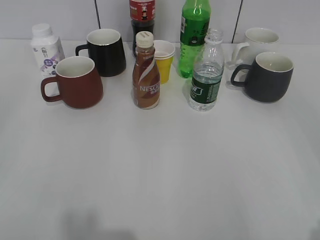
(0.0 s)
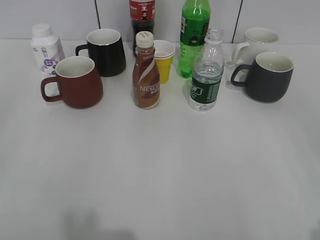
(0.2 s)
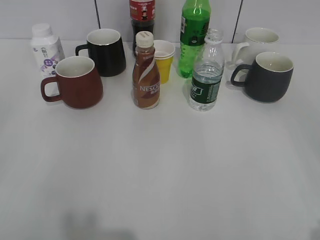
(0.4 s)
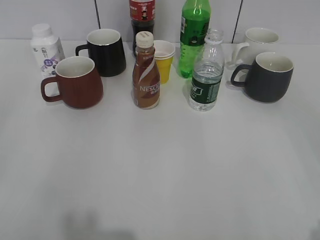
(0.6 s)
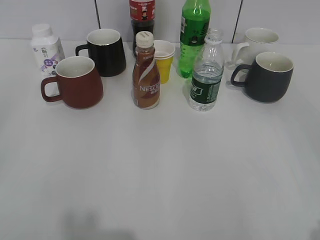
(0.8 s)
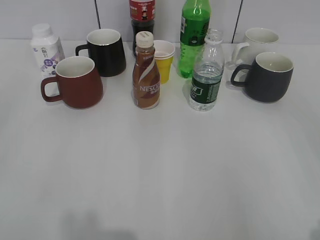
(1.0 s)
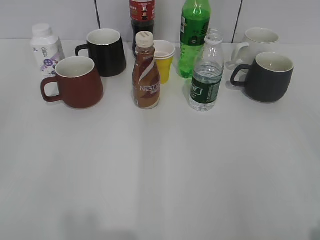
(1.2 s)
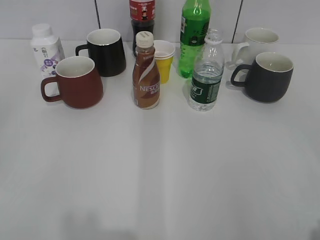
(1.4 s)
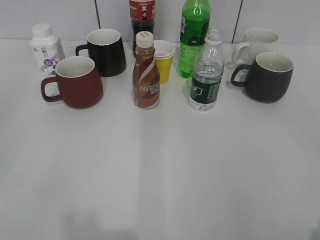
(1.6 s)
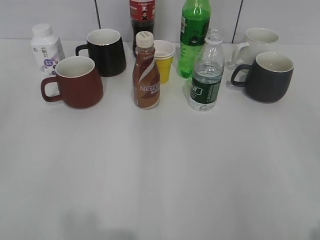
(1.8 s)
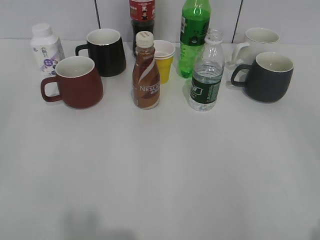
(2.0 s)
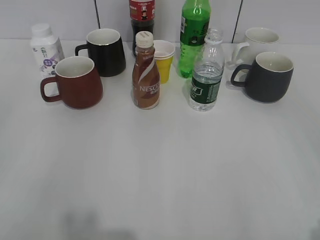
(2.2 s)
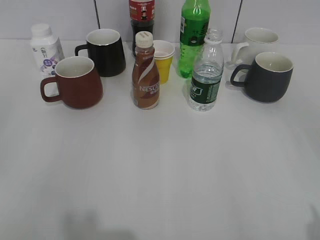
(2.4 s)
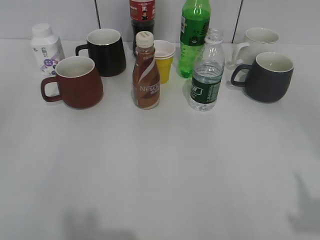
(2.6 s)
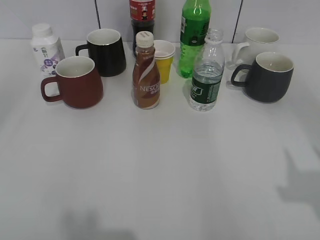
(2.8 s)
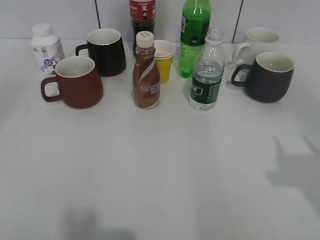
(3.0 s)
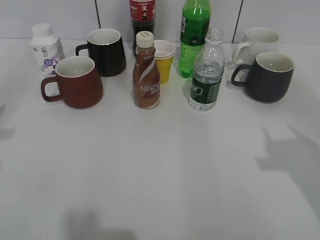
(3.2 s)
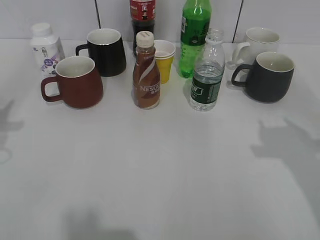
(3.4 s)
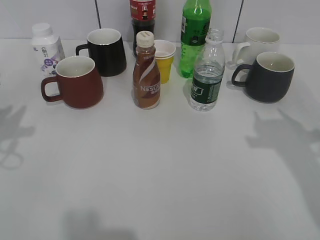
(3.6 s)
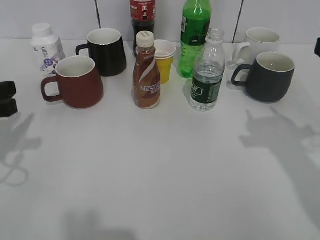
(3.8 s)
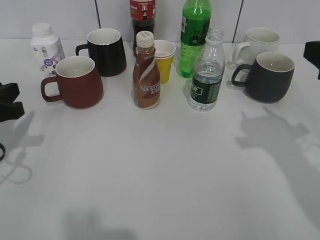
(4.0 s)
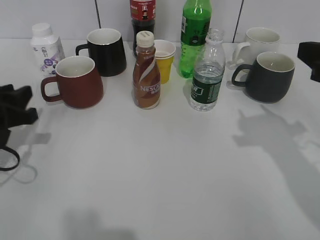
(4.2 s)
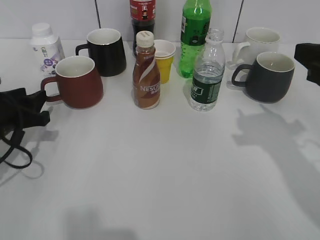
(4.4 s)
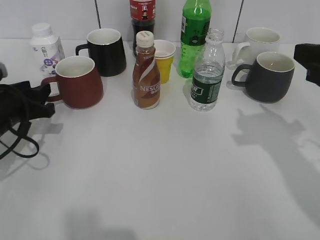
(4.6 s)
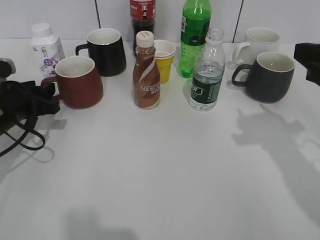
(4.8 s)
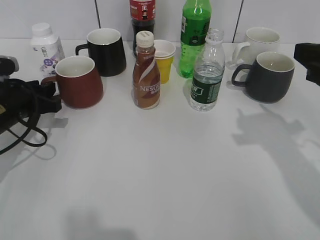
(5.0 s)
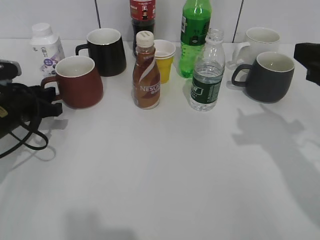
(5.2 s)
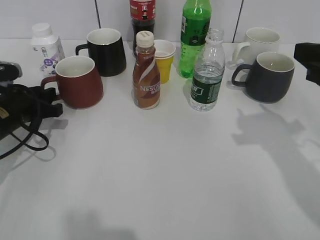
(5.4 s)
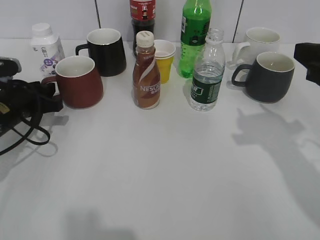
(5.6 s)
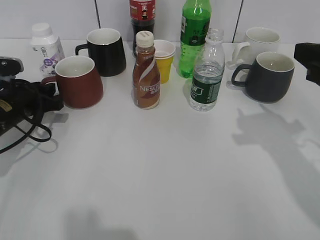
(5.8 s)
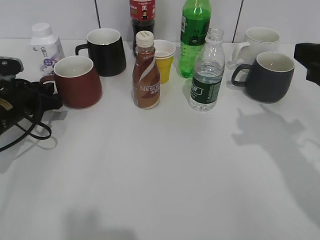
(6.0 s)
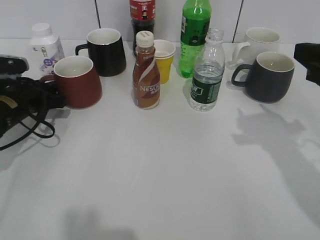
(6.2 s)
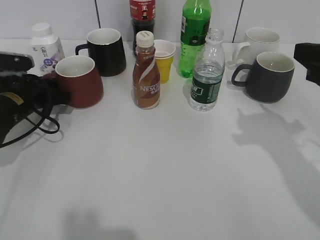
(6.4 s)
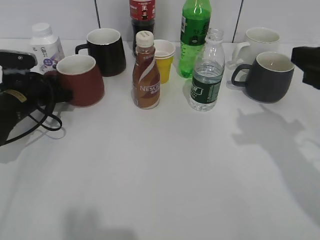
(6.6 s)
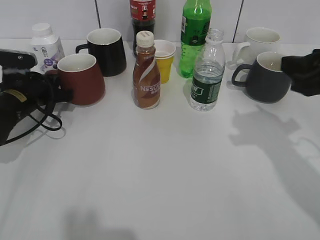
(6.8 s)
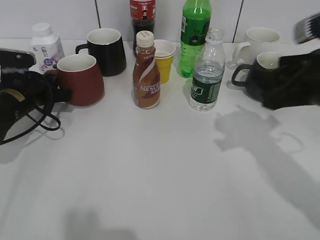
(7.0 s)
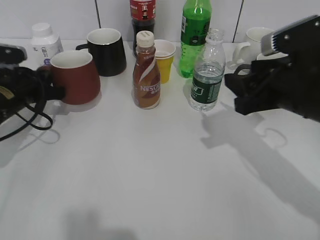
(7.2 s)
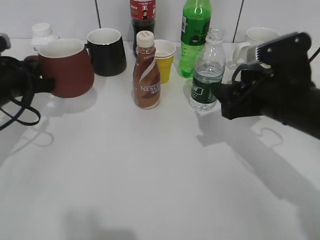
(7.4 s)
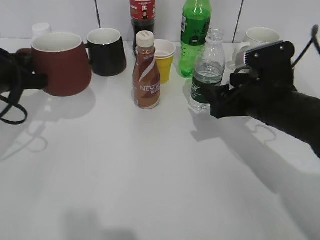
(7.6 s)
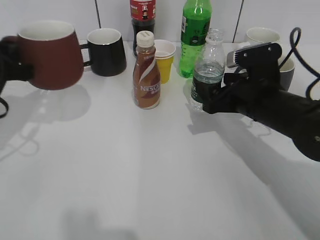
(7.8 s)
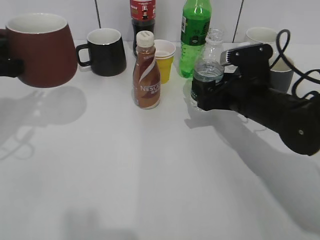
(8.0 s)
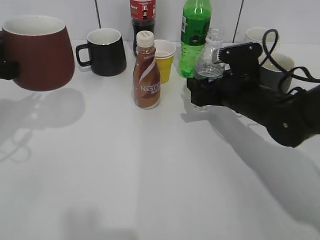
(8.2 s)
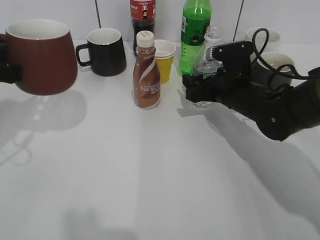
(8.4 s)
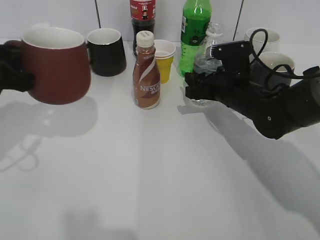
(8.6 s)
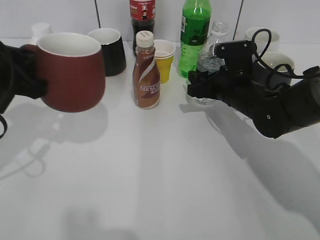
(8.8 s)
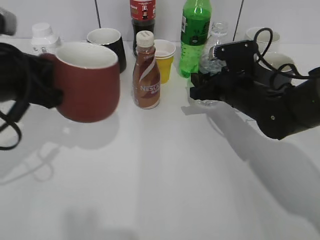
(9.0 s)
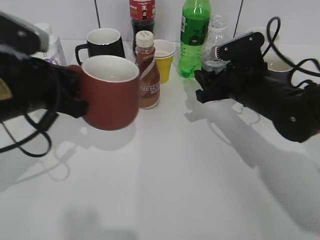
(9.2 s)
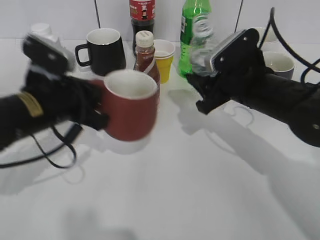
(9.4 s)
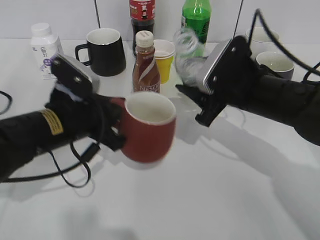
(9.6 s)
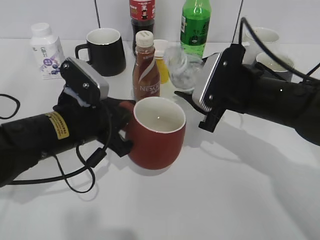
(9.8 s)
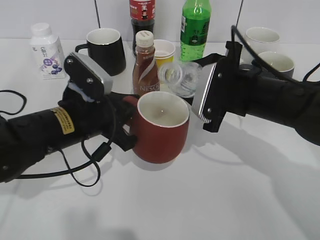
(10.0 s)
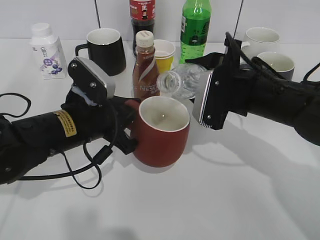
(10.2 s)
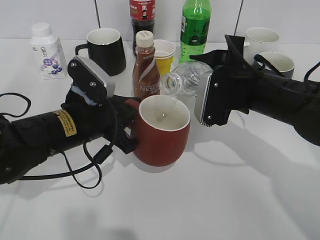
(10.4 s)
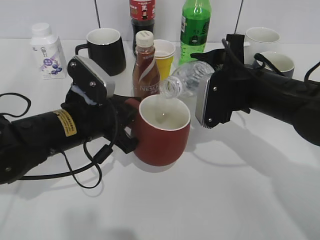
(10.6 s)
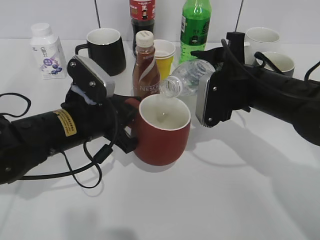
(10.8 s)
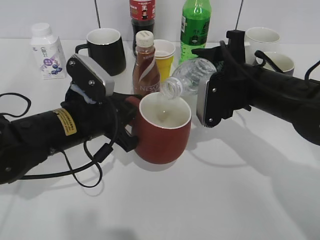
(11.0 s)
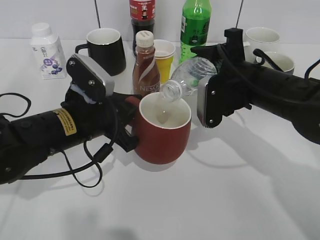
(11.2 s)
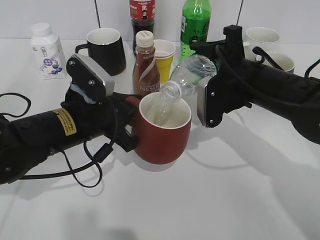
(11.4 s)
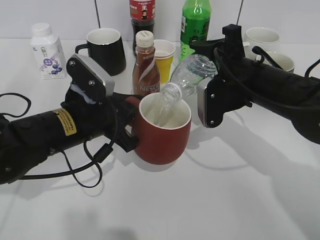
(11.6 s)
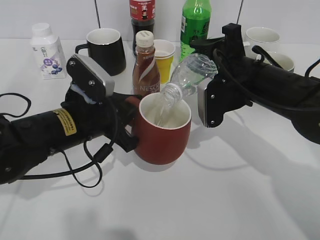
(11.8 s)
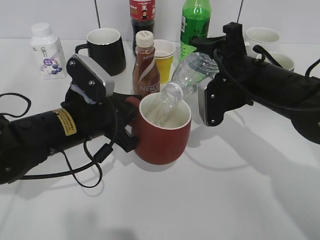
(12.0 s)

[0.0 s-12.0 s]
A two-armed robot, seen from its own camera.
Step, 2.2 to 6.6 s: Grasp the red cup with left gripper.
Step, 6.8 to 7.4 s: Lift the red cup with left gripper.
Step, 7.6 to 8.6 s: Grasp the bottle with water with right gripper.
1.6 to 3.0 s: The left gripper is displaced forward by some 10 cm.
3.0 to 4.4 s: The right gripper shifts some 15 cm forward and downward, while the left gripper goes some 25 cm downward and forward, and opens up.
4.4 to 6.0 s: The left gripper goes about 5 cm forward.
6.0 to 7.6 s: The left gripper heads upward, covering some 10 cm, and closes up, while the right gripper travels downward, to the left and forward by about 15 cm, and opens up.
7.6 to 9.0 s: The left gripper shifts approximately 5 cm backward. The right gripper heads forward, covering some 10 cm, and closes.
9.0 to 10.4 s: The right gripper heads backward and upward, covering about 10 cm; the left gripper heads downward and to the right, covering about 15 cm.

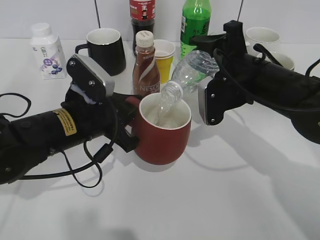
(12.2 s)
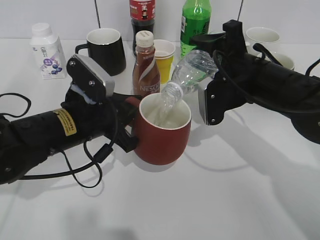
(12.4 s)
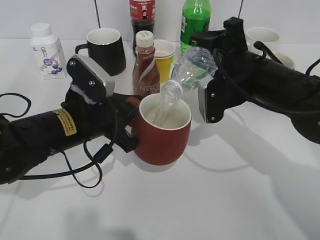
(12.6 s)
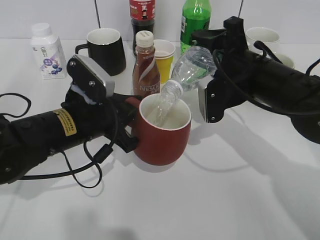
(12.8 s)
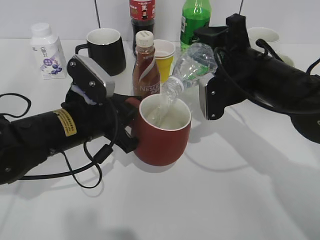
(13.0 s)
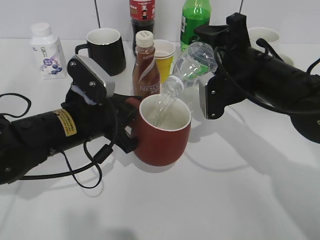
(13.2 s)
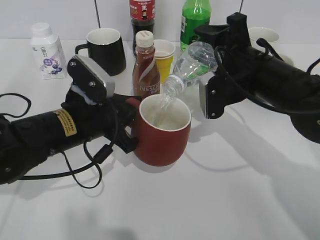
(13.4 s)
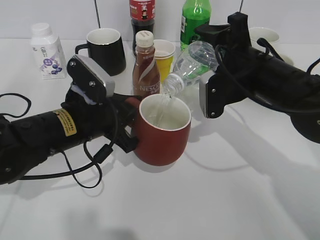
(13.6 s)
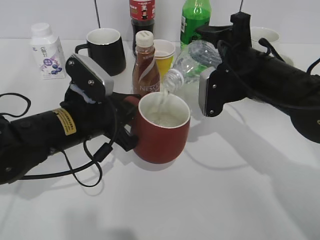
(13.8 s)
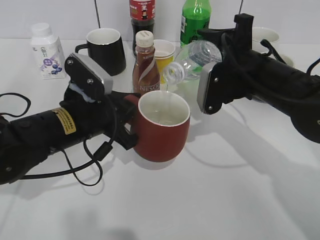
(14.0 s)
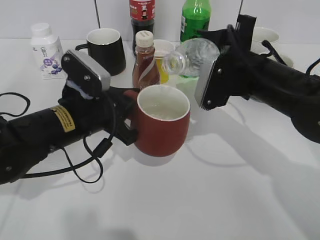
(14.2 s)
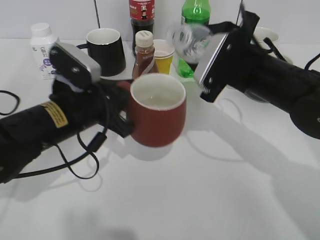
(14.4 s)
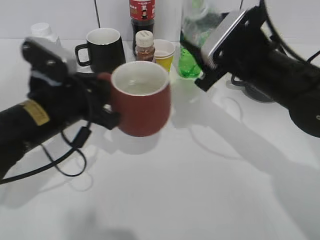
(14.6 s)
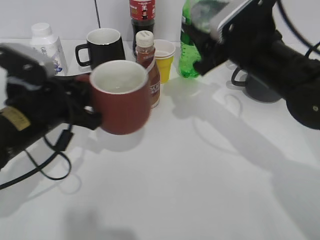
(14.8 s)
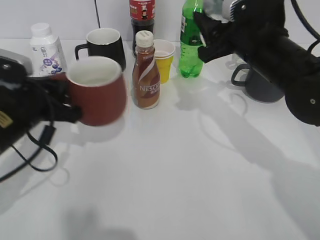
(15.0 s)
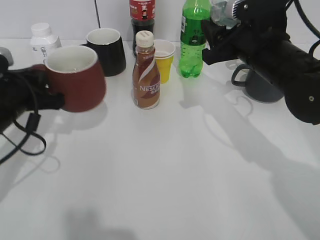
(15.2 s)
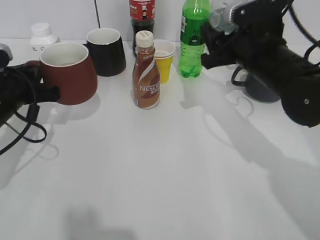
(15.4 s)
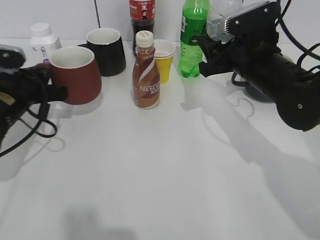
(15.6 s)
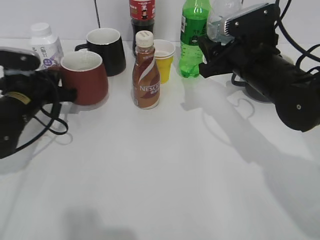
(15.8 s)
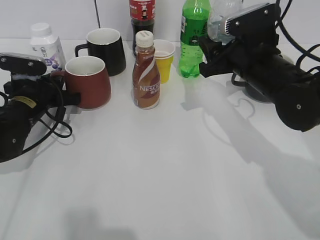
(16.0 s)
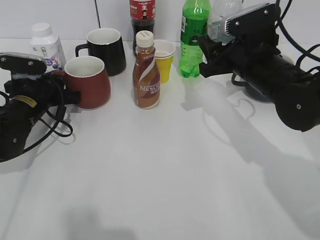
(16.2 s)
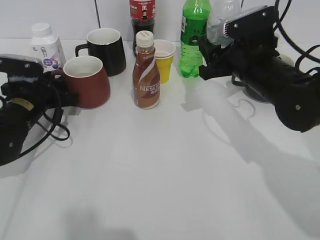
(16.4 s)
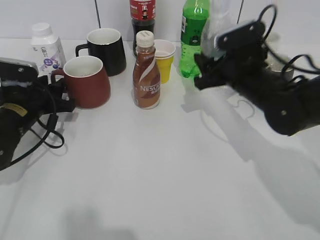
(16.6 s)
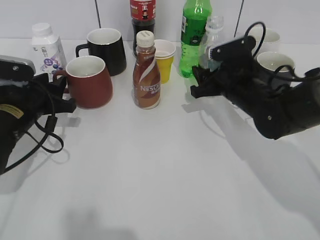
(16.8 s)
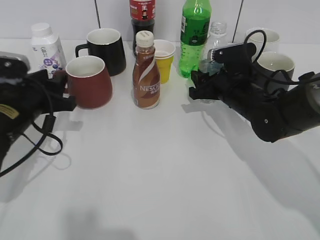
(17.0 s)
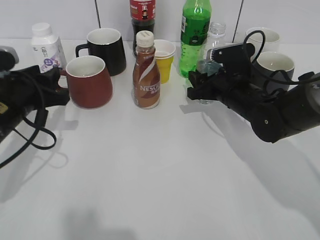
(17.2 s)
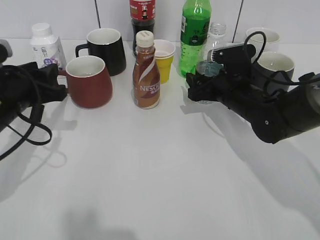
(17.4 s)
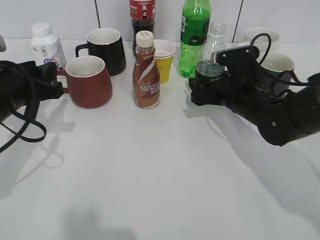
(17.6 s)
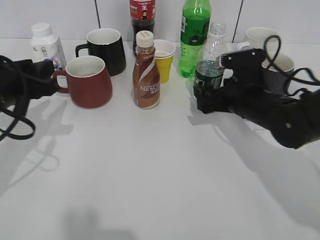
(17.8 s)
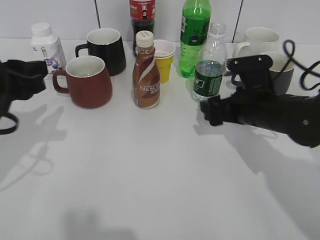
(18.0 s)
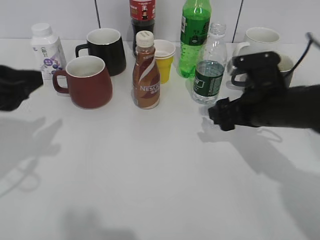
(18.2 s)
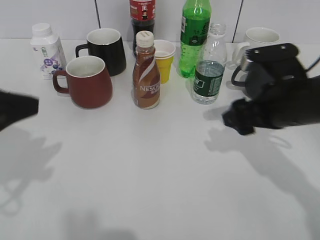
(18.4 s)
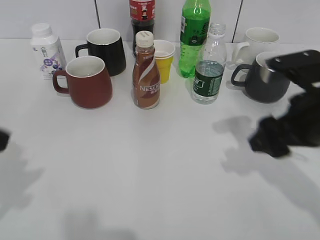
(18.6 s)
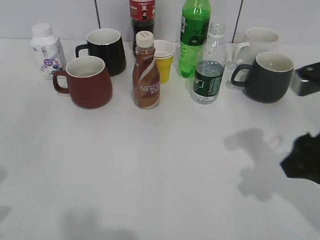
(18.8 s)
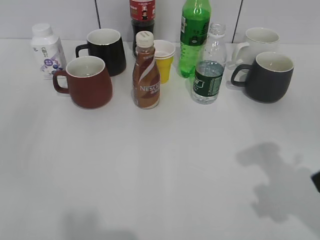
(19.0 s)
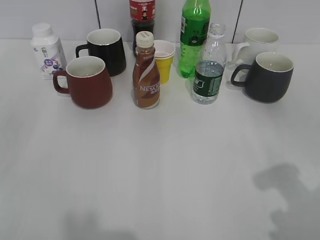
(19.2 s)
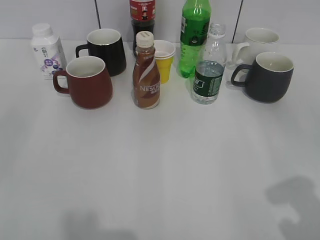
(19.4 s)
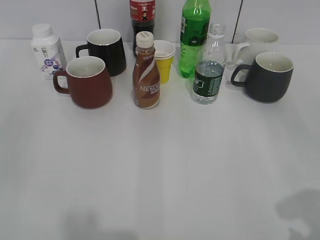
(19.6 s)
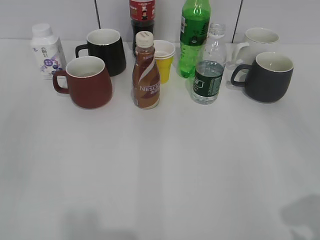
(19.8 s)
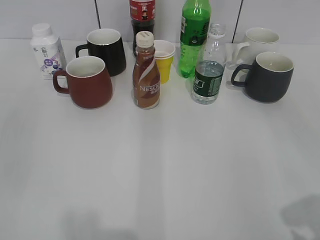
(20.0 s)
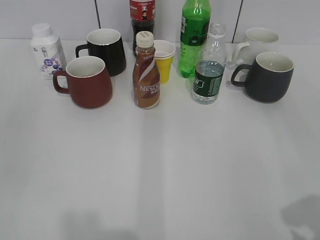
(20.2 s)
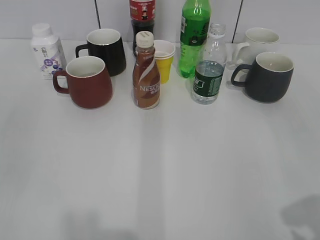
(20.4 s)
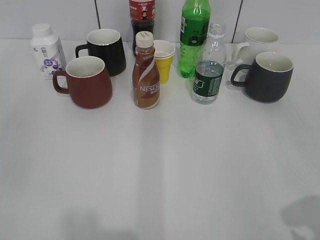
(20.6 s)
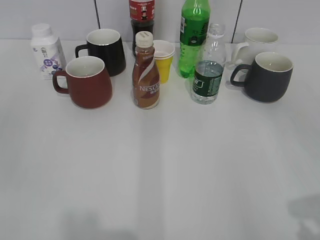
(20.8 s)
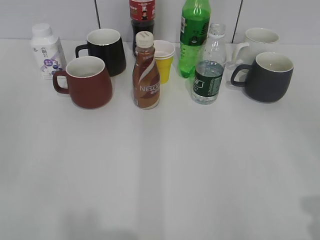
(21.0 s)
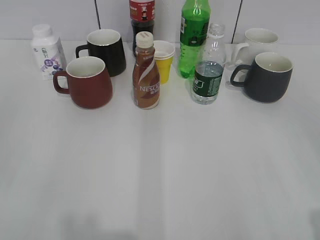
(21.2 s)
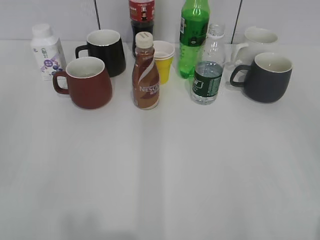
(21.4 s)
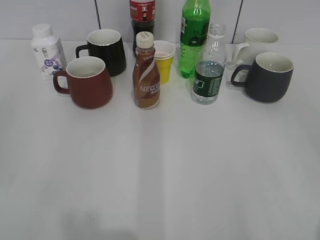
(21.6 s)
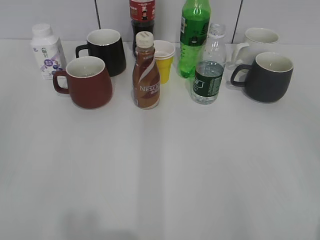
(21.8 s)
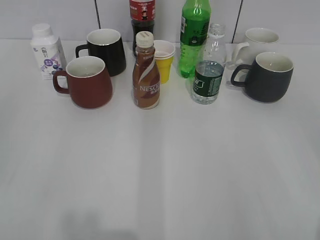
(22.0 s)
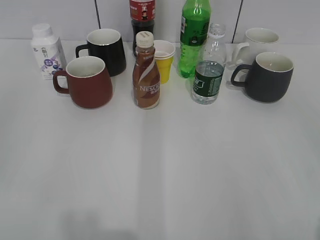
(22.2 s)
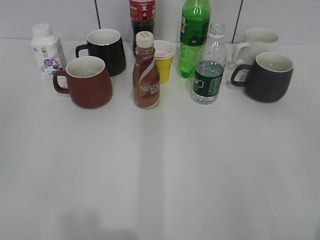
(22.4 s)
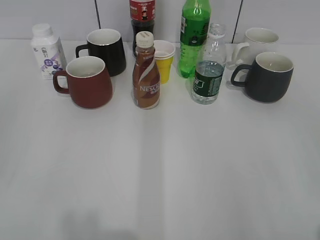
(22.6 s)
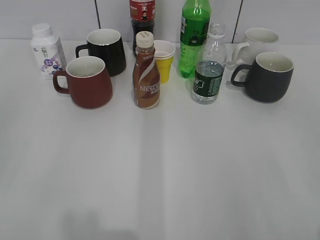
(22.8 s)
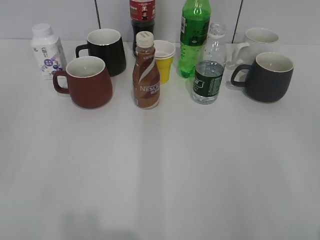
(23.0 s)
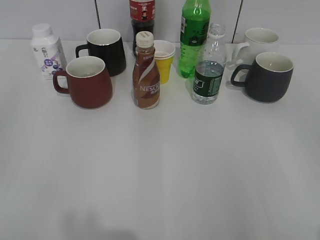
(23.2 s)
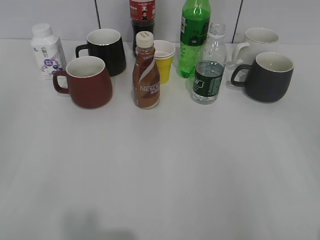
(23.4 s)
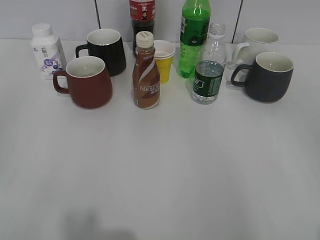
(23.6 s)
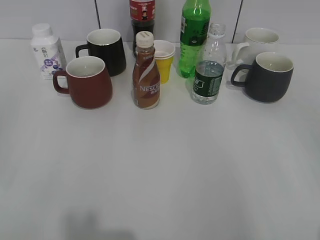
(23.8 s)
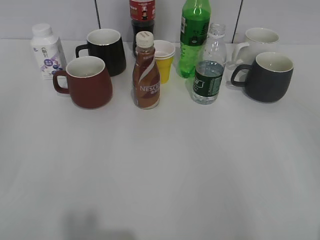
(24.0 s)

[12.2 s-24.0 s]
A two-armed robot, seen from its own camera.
Step, 12.2 to 14.2 s: Pour the water from bottle to cup with right gripper.
Step, 14.6 to 16.2 s: Place the red cup on the table with left gripper.
Step, 16.4 to 17.8 s: Place the water bottle on the table with right gripper.
12.2 to 13.6 s: The grippers stay close to where they were, moving slightly.
13.6 to 15.2 s: The left gripper heads to the left, covering approximately 10 cm.
15.2 to 16.6 s: The left gripper goes about 10 cm downward and forward, and opens its fingers. The right gripper shifts roughly 5 cm downward.
16.6 to 18.2 s: The left gripper shifts about 20 cm upward and backward; the right gripper goes roughly 5 cm backward, and opens.
18.2 to 19.6 s: The right gripper goes some 30 cm backward, upward and to the right. The left gripper goes about 15 cm backward.
22.6 to 24.0 s: Neither gripper changes place.
